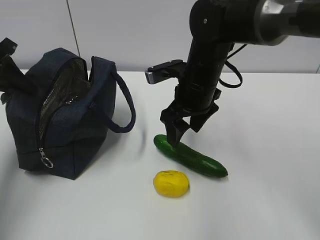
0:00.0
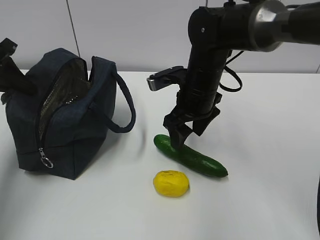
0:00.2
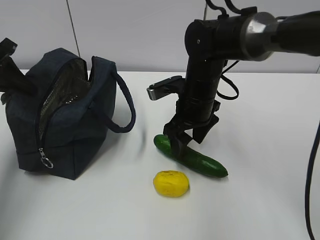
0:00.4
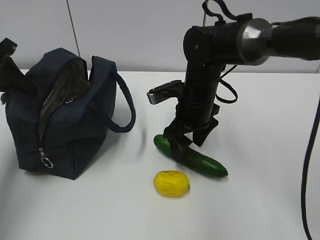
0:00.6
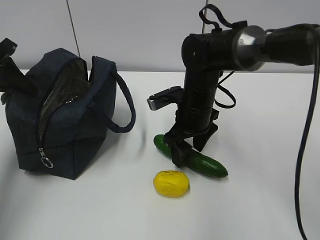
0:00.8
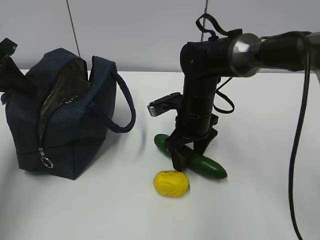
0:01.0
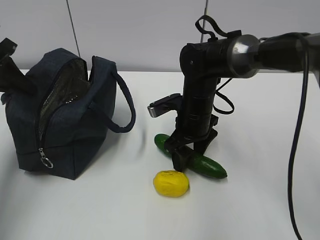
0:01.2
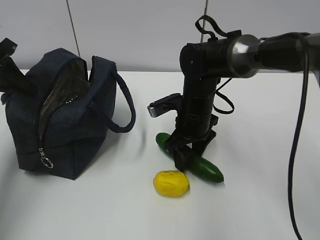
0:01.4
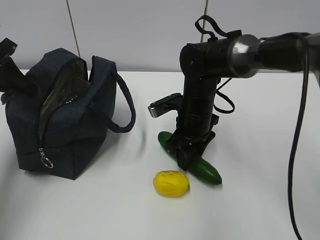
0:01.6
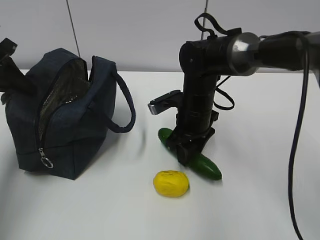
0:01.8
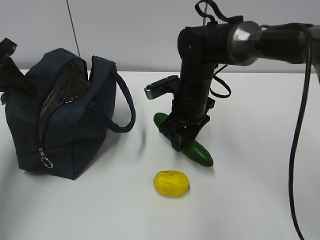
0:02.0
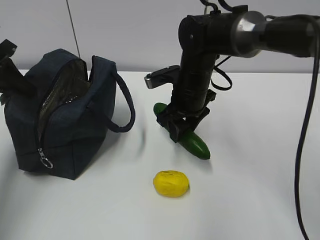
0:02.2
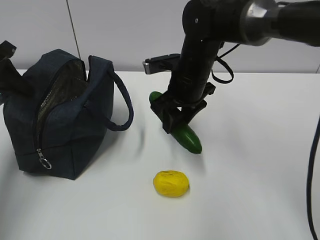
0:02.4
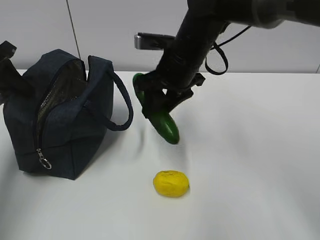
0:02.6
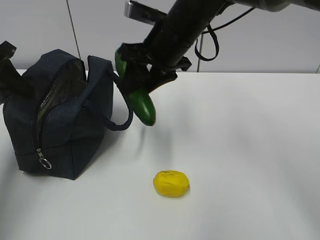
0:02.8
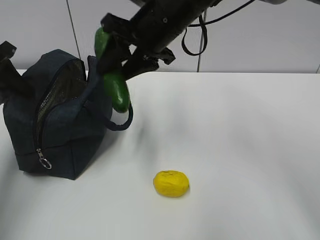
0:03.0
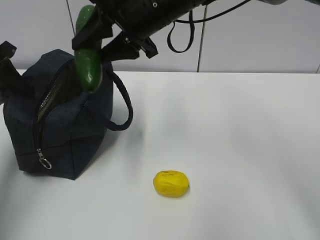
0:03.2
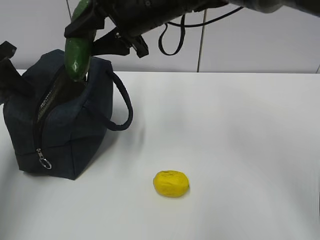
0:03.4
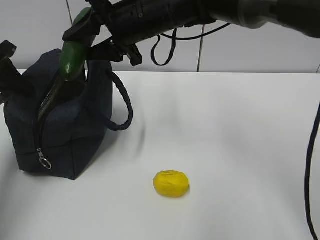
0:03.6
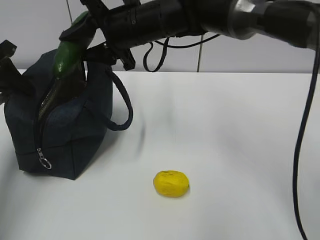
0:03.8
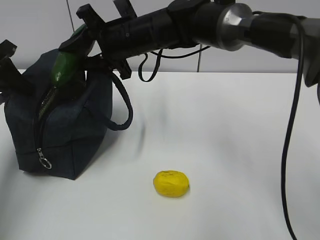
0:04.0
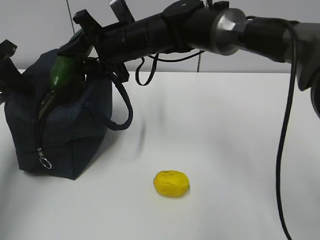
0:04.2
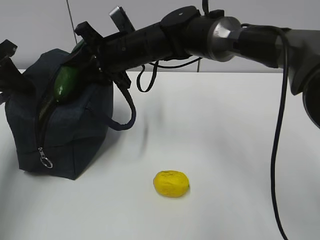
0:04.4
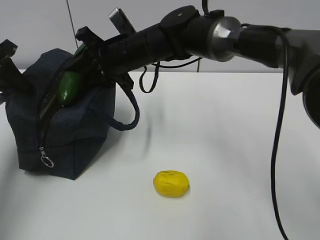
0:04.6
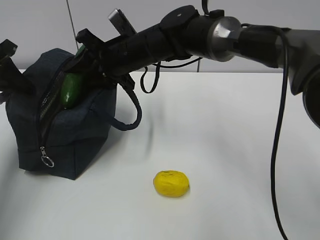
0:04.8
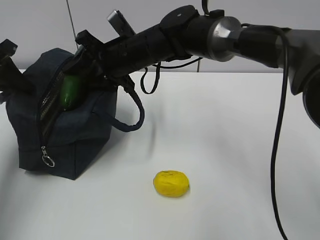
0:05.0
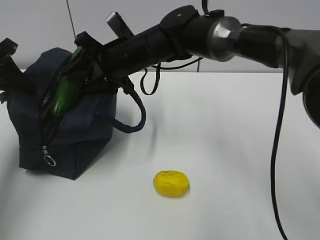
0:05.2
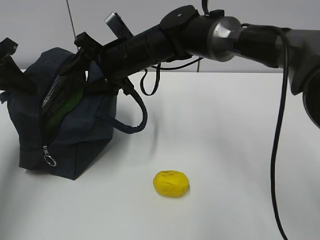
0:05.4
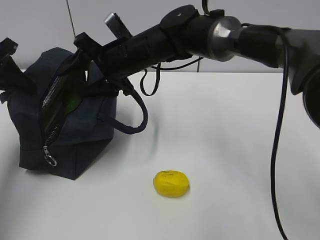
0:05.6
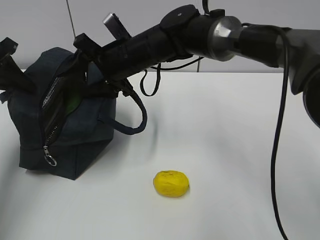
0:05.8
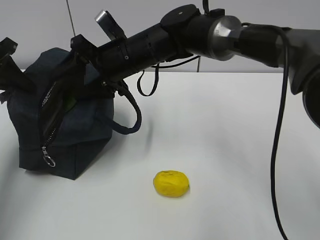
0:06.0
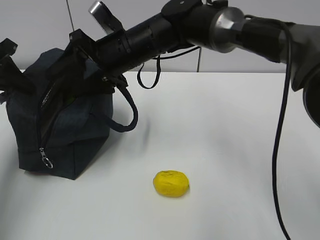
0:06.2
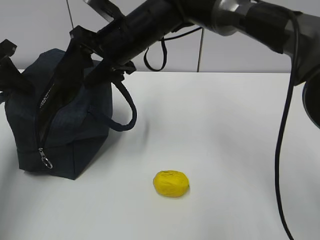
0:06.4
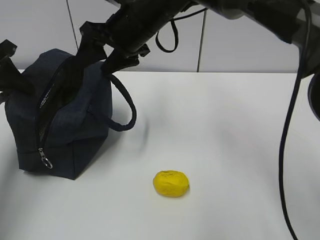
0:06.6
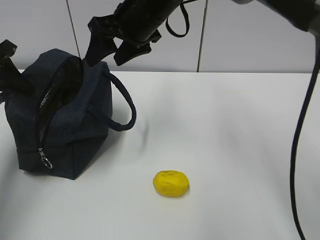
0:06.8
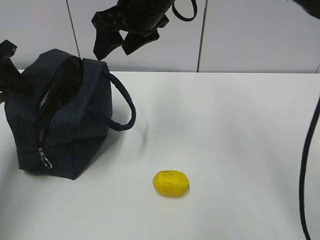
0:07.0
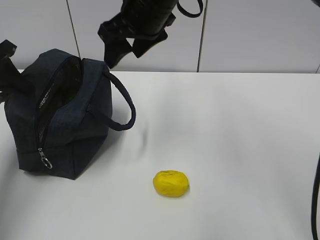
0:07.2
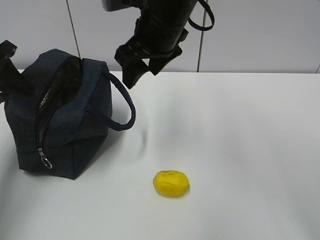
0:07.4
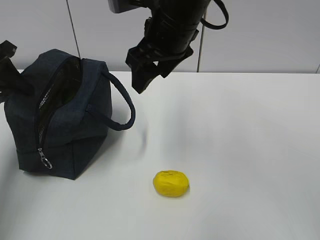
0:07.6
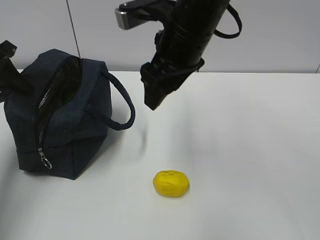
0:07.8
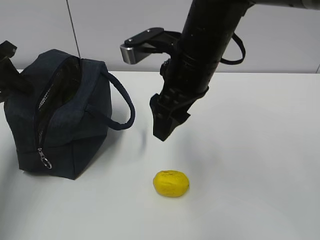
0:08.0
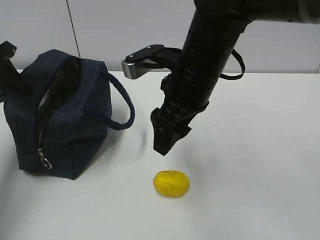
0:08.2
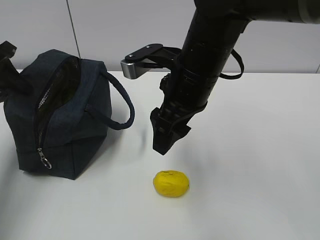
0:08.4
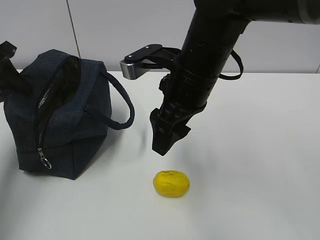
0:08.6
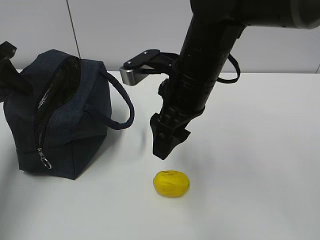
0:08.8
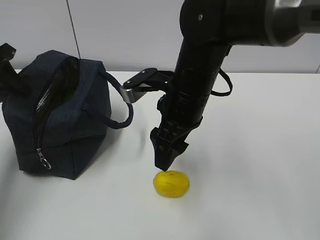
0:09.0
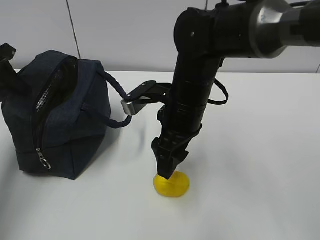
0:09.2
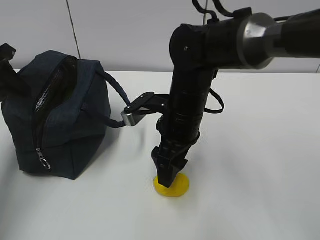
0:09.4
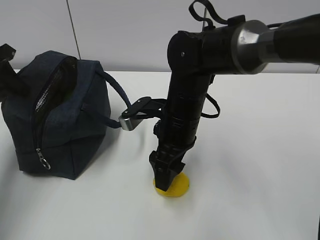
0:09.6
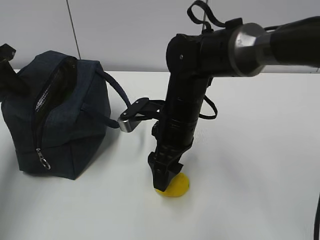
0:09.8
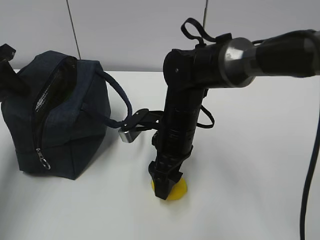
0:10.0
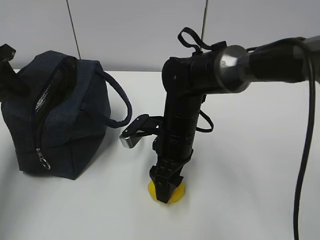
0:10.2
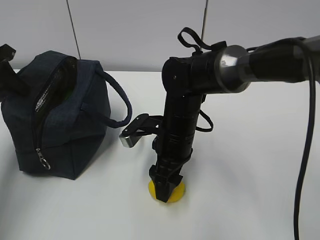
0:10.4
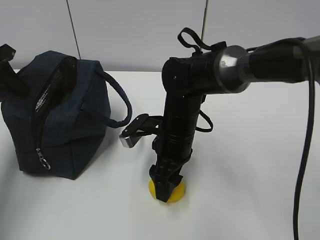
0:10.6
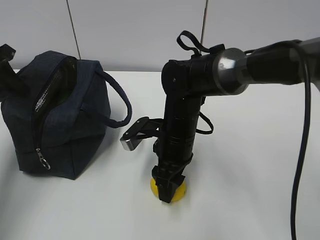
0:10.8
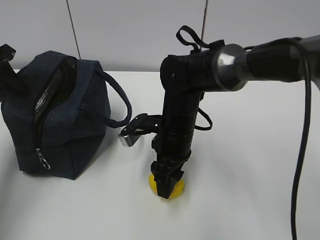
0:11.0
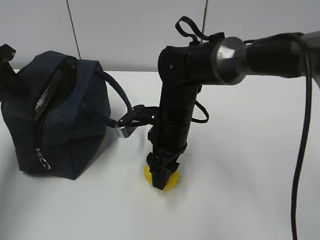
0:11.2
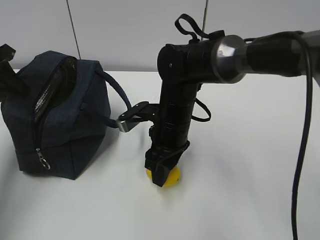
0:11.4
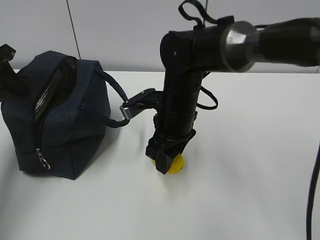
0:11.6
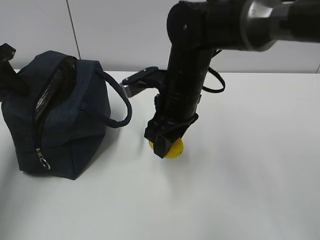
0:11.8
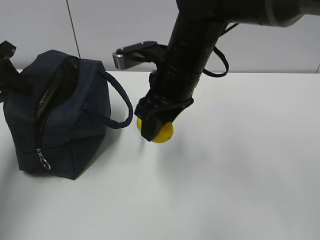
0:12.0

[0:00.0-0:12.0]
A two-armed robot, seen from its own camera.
Step, 0:00.0 to 0:04.0: Grab the pear with your right hand.
Step, 0:06.8 to 0:08.6: Grab the lunch bag with your right hand.
Step, 0:08.8 to 0:11.8: Move the lunch bag to the right.
0:00.0 to 0:01.6: The right gripper is displaced downward by about 5 cm.
0:01.6 to 0:03.0: The right gripper shifts some 15 cm upward.
0:03.0 to 0:04.4: The right gripper heads downward and to the left, covering roughly 10 cm.
0:04.4 to 0:06.0: The grippers stay close to where they were, moving slightly.
0:06.0 to 0:07.6: The right gripper travels upward, to the right and backward by some 10 cm.
0:07.6 to 0:09.0: The right gripper heads downward, covering roughly 10 cm.
0:09.0 to 0:10.4: The right gripper travels downward by approximately 10 cm.
0:10.4 to 0:12.0: The right gripper is displaced upward by approximately 10 cm.

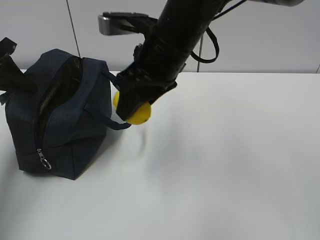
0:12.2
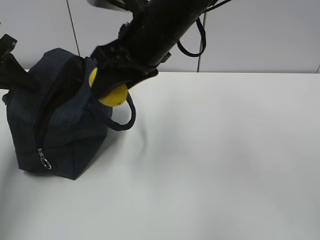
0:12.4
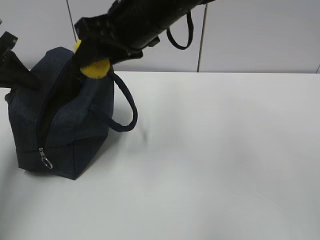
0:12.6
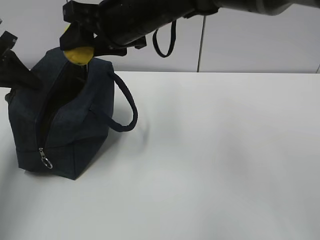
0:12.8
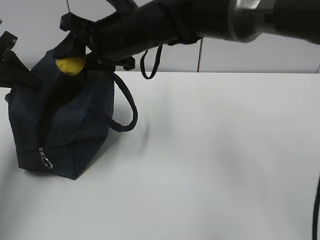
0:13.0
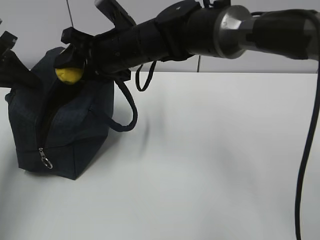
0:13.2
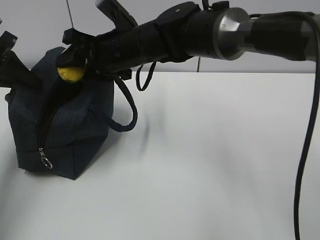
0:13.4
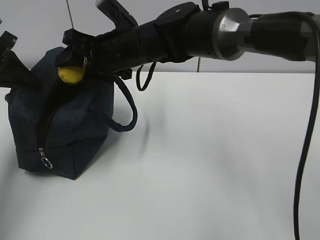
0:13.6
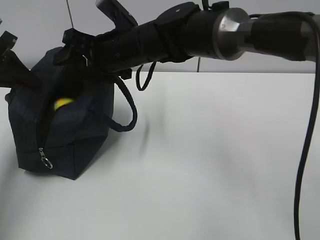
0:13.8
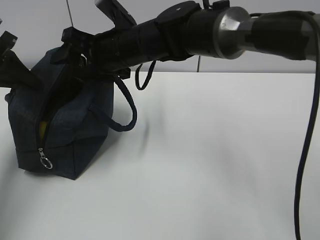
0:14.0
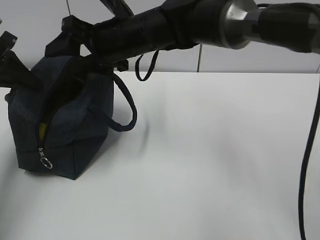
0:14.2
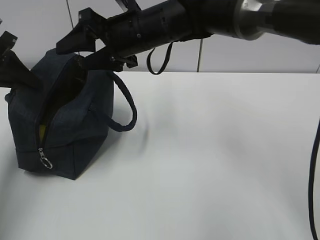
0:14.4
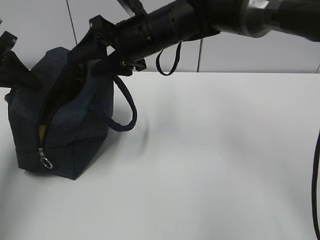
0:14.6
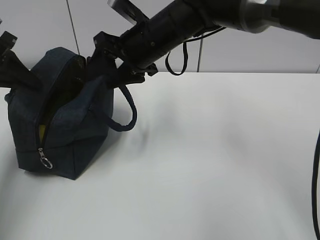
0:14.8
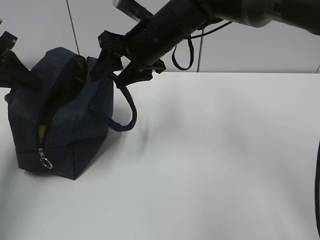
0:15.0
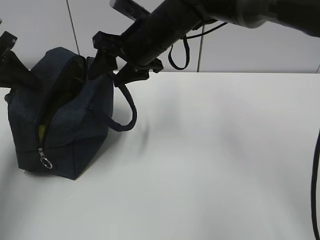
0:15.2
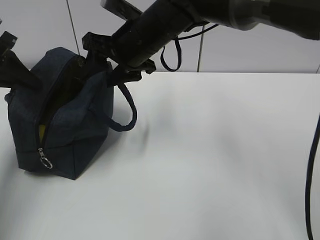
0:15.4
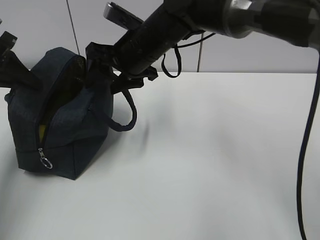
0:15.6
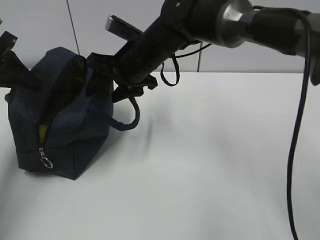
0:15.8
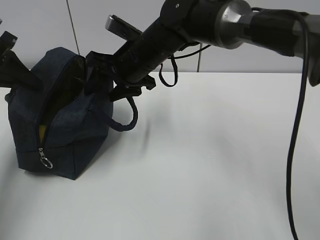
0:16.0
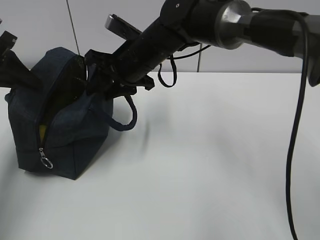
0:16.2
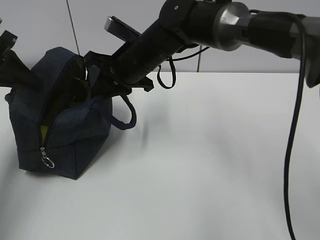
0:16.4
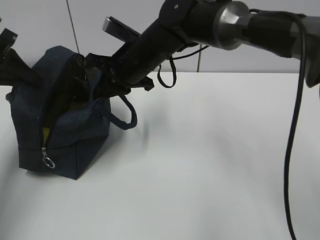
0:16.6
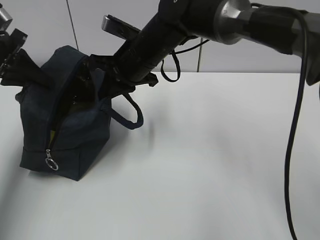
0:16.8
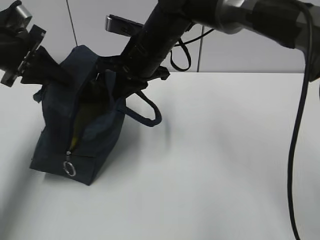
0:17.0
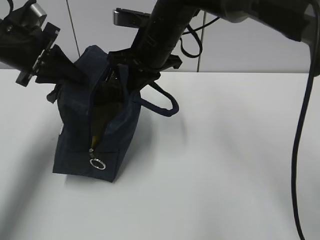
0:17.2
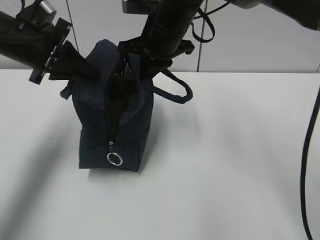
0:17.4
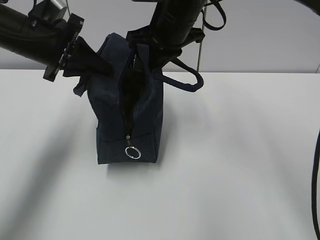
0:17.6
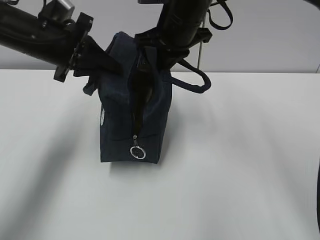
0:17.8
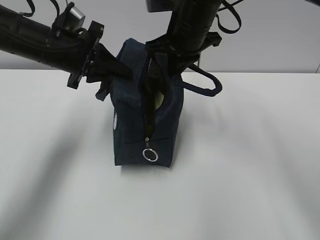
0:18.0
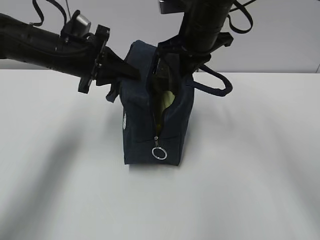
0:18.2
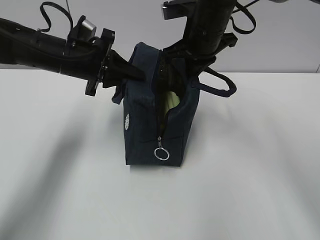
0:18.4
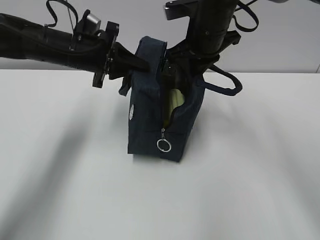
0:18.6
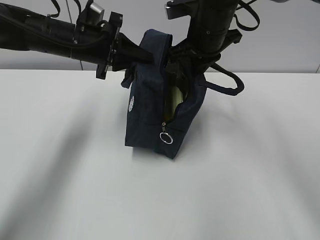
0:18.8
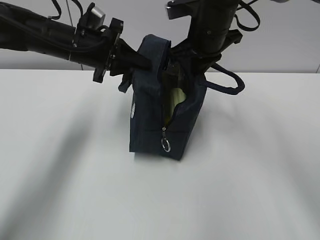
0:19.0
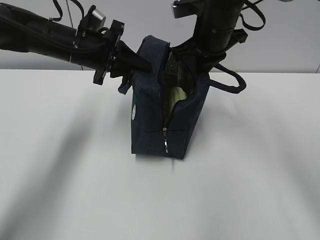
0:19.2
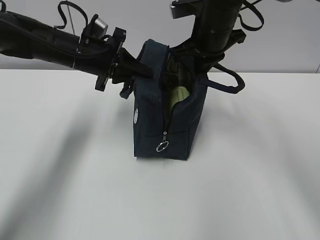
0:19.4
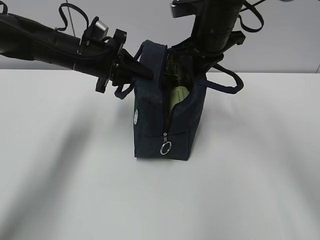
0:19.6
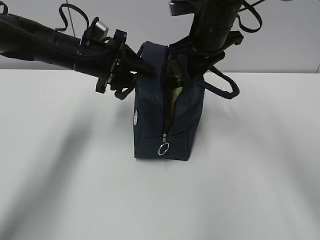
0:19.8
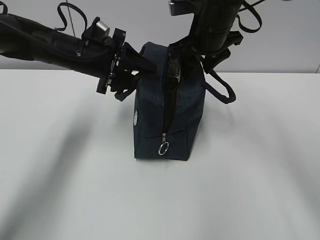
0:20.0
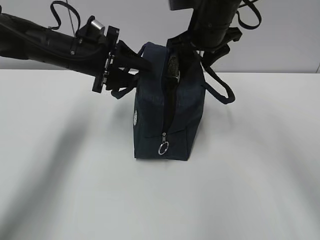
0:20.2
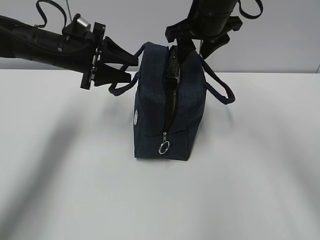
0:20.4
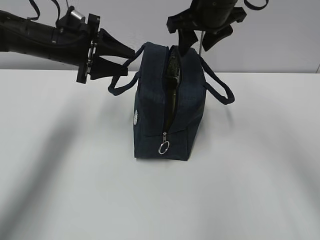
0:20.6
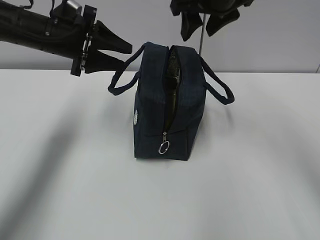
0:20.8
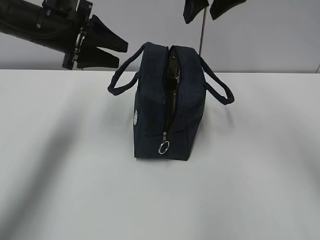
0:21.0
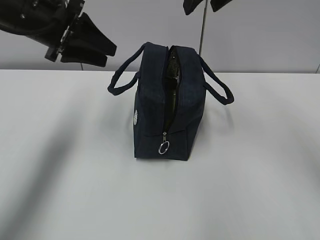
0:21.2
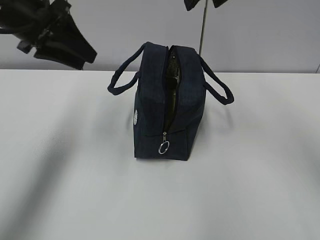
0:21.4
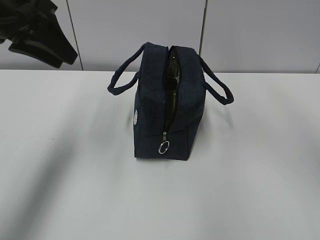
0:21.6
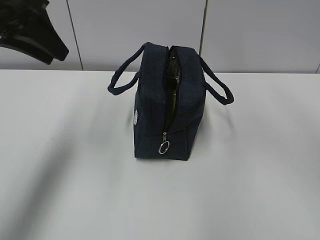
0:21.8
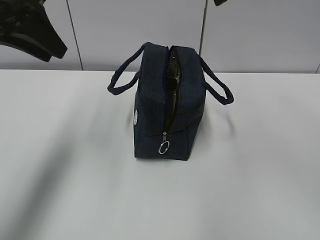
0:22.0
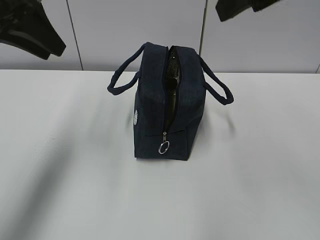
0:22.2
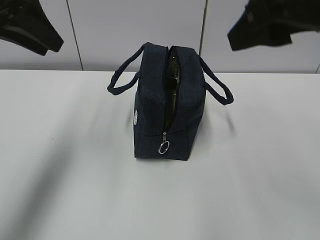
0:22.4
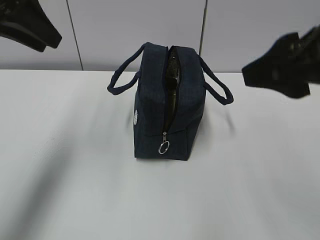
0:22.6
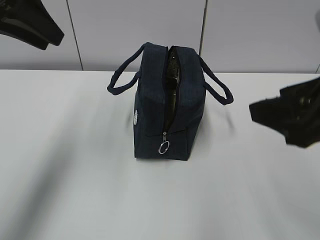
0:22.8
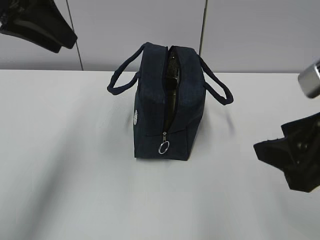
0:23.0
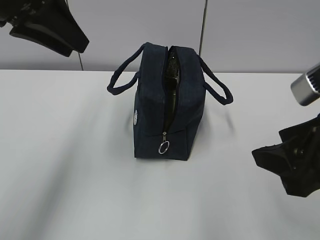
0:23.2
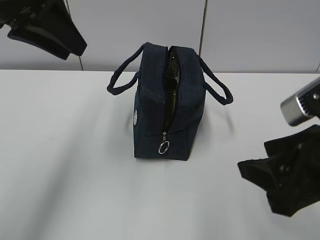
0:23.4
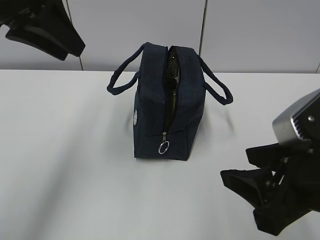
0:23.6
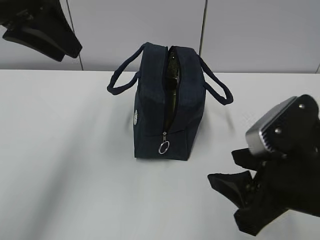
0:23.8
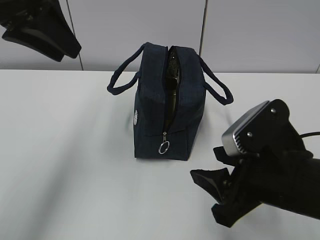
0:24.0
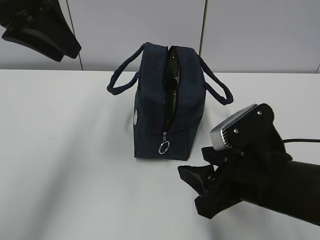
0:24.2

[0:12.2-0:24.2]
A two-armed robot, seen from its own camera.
0:12.2 to 0:13.8: The right gripper shifts roughly 10 cm forward and to the left.
0:15.2 to 0:16.6: The right gripper closes its fingers.
0:16.6 to 0:18.2: The right gripper goes roughly 10 cm to the right and upward. The left gripper shifts about 15 cm to the right.
0:18.2 to 0:19.8: The left gripper opens.
0:19.8 to 0:21.2: The right gripper heads upward, covering about 10 cm, and opens. The left gripper is displaced upward and to the left by some 10 cm.
0:21.2 to 0:22.6: The right gripper moves backward, some 20 cm. Meanwhile the left gripper heads upward and backward, covering about 10 cm.
0:22.6 to 0:24.2: The right gripper shifts approximately 20 cm downward.
